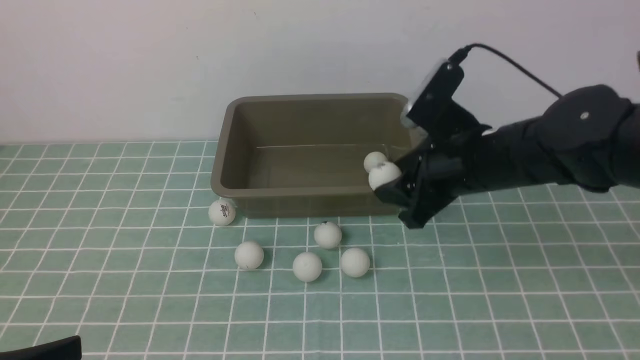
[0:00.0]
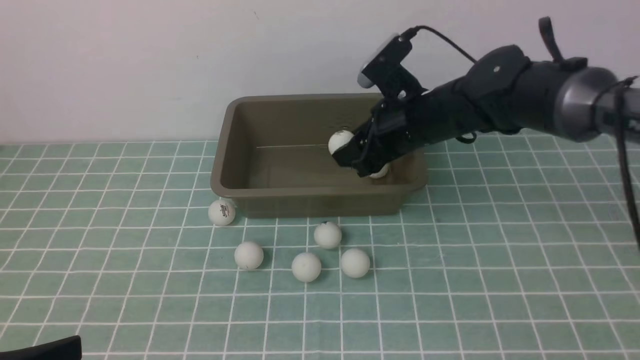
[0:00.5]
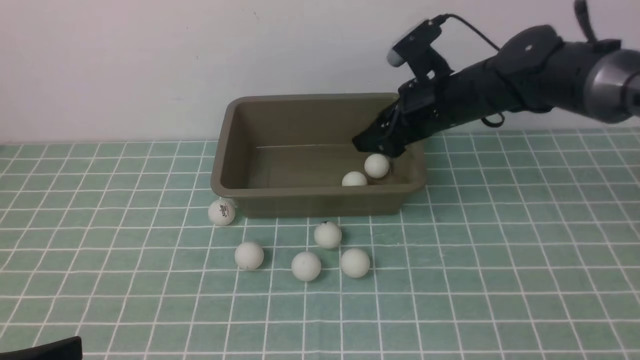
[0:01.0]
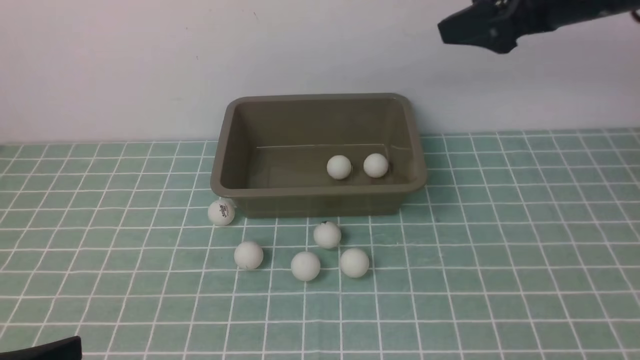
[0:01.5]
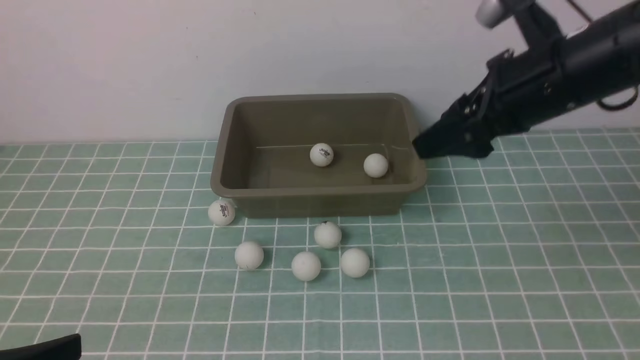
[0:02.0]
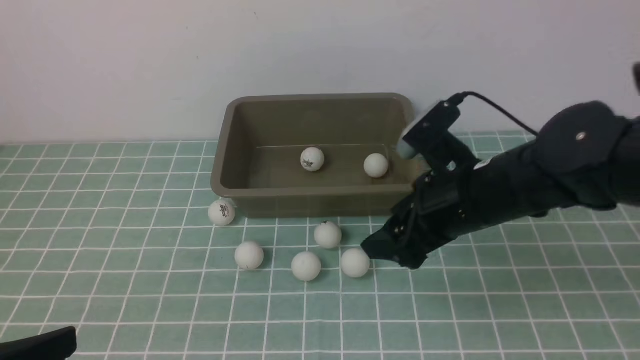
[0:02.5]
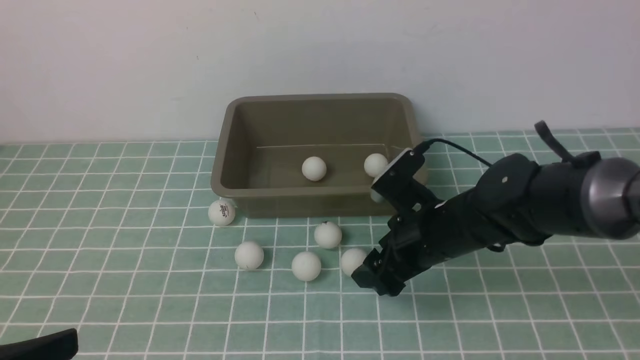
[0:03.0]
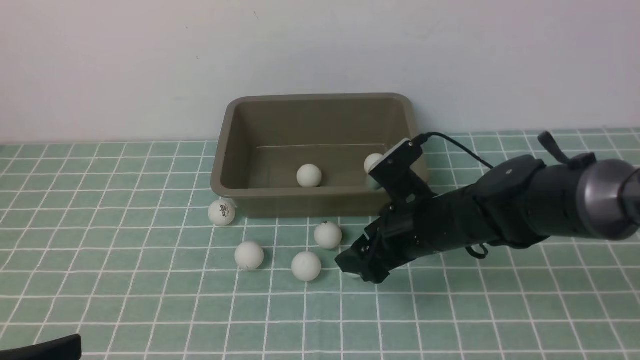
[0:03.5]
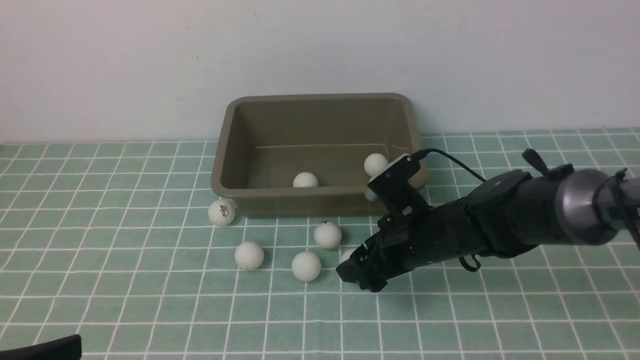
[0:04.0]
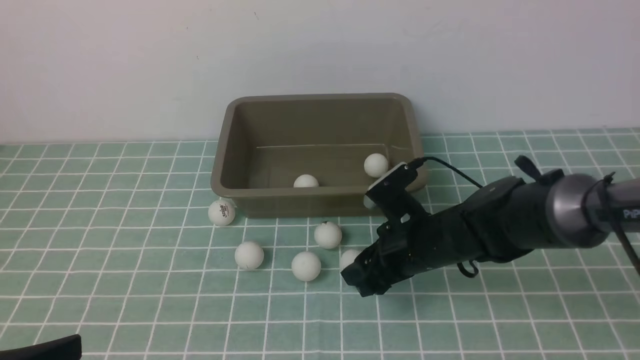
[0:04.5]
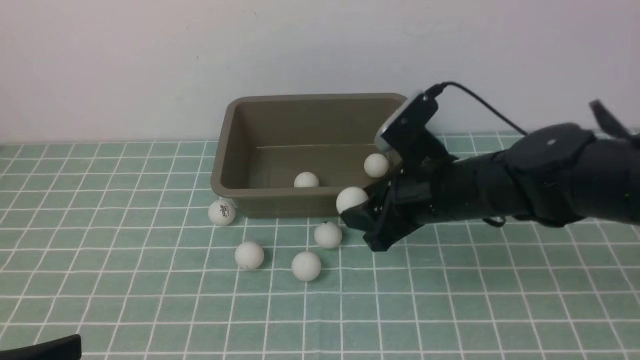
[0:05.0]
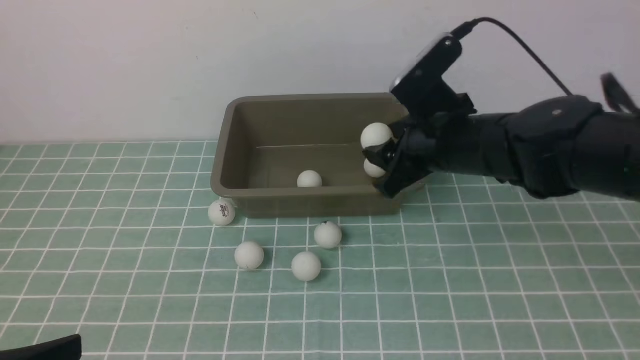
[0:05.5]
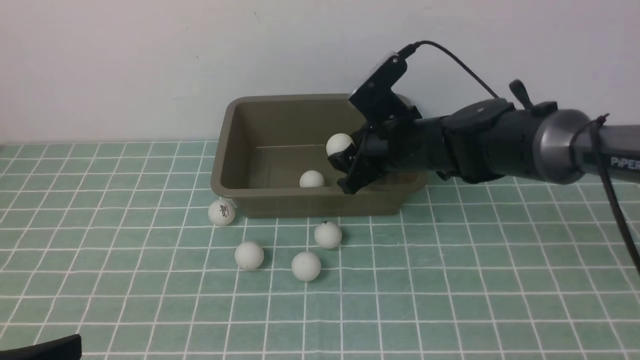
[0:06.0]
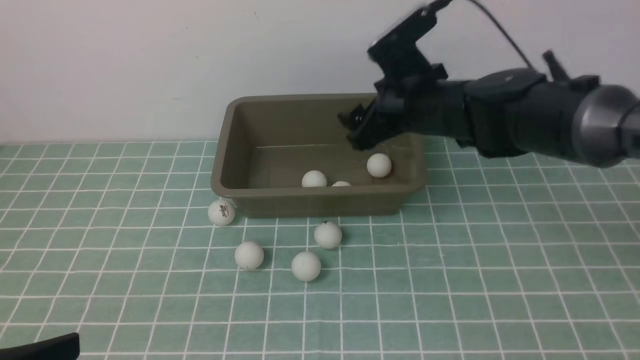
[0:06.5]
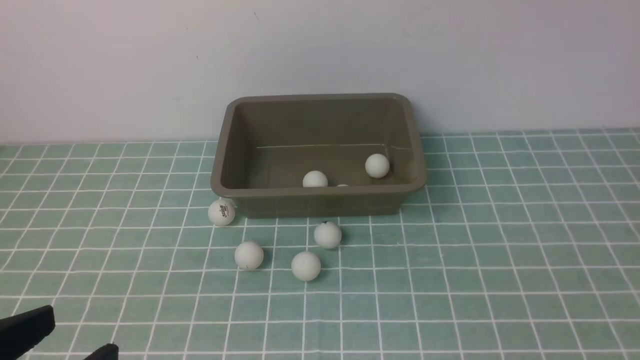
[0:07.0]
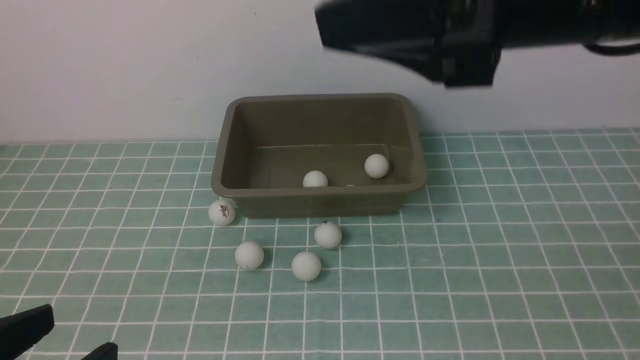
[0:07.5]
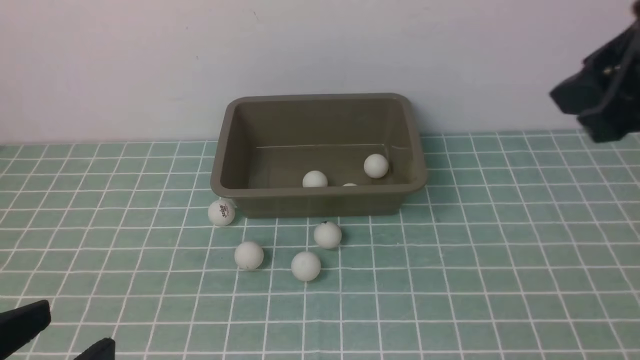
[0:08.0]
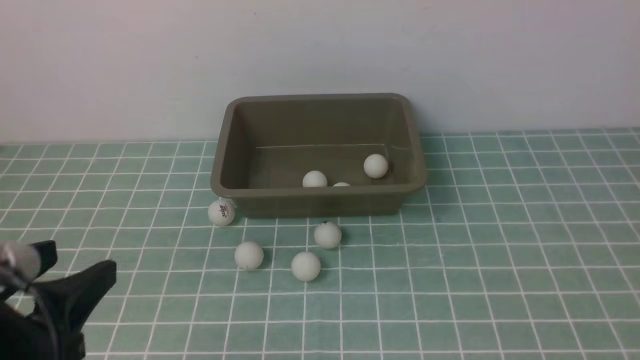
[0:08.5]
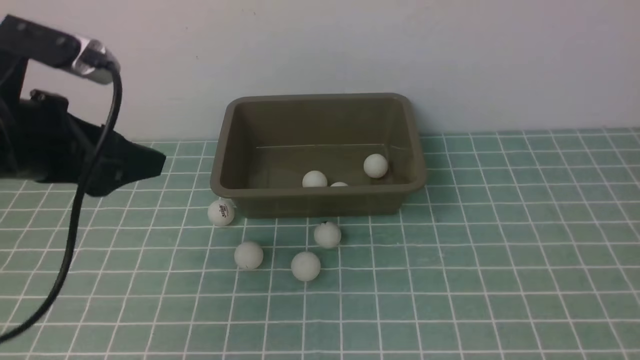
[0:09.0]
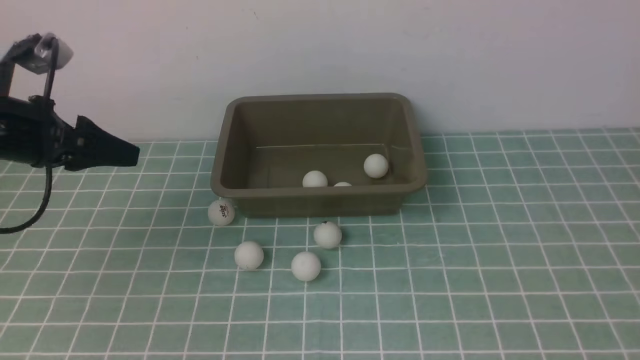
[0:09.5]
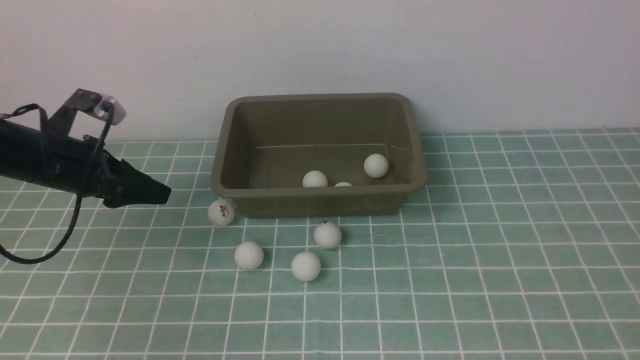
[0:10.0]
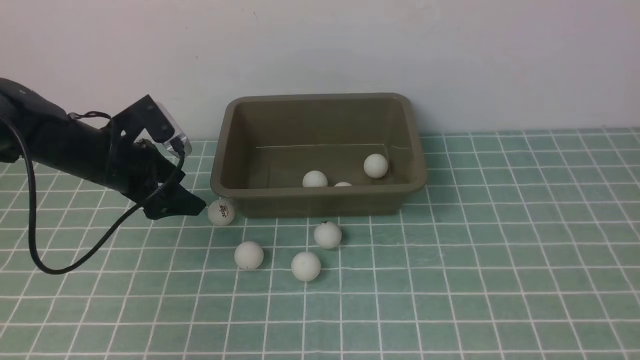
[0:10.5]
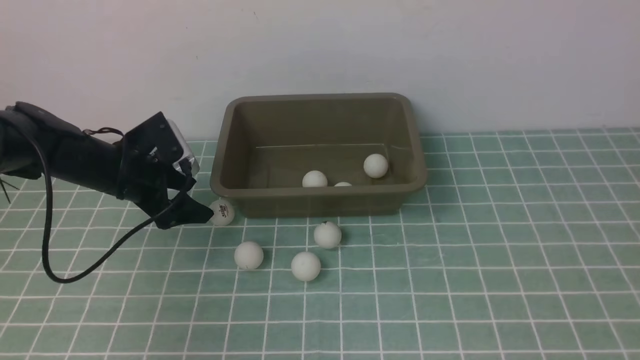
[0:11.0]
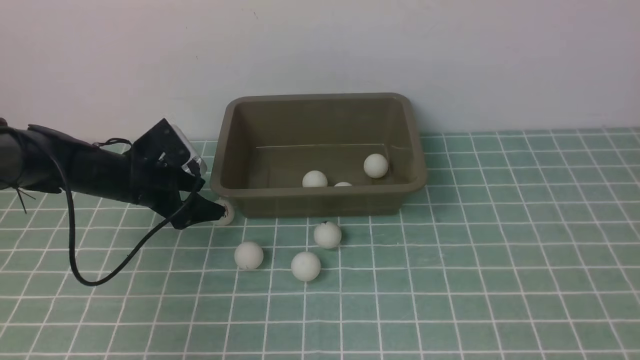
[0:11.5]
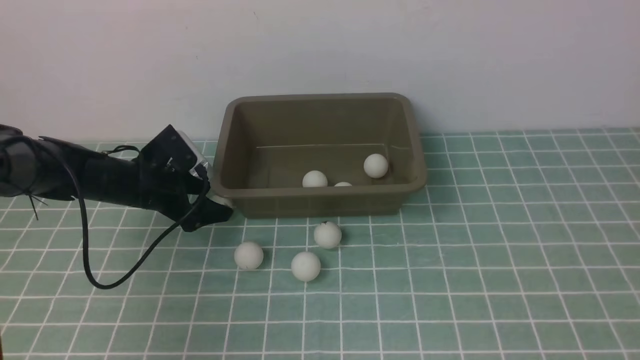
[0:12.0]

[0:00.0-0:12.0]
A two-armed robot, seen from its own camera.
Step, 0:00.0 to 0:01.0: use the right arm to put the table tennis ball into the box.
Step, 0:01.5 to 0:04.5: use the right arm to clamp the table tennis ball closest to it.
Step, 0:05.0 to 0:06.0: use the right arm to put the table tennis ball into the box.
0:00.0 to 0:02.0: The right gripper goes approximately 10 cm upward and to the right, and opens its fingers.
0:02.0 to 0:04.0: The right gripper moves downward and to the left, roughly 20 cm.
0:04.0 to 0:06.0: The right gripper goes about 10 cm forward and upward, and closes its fingers.
0:06.0 to 0:08.0: The right gripper goes roughly 30 cm upward, backward and to the right, and closes up.
0:08.0 to 0:10.0: The right gripper goes roughly 15 cm backward, to the right and upward. The left gripper travels forward by roughly 35 cm.
0:10.0 to 0:12.0: The left gripper is displaced downward and to the right by about 10 cm, and opens.

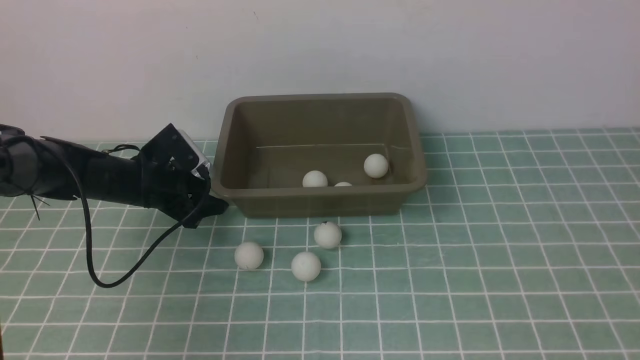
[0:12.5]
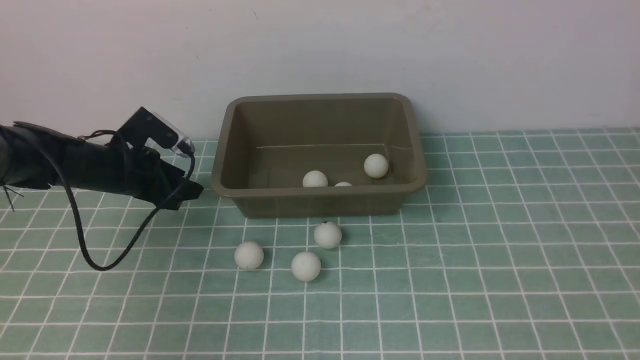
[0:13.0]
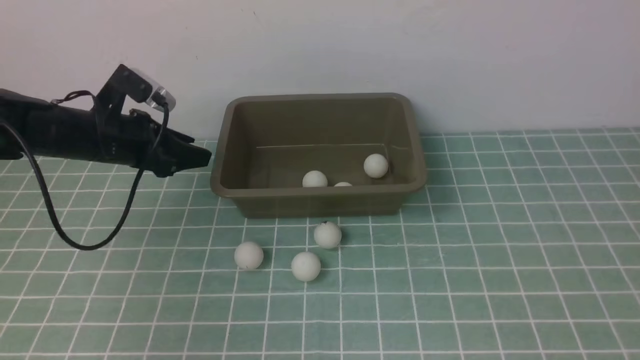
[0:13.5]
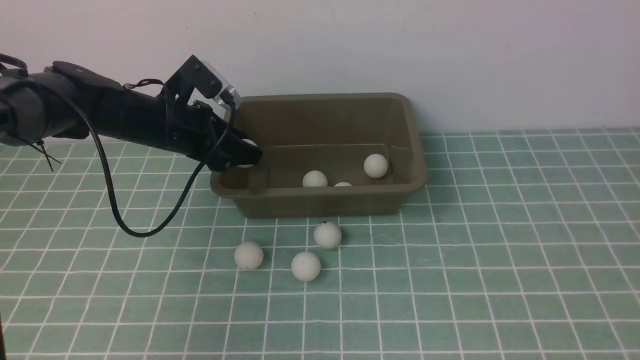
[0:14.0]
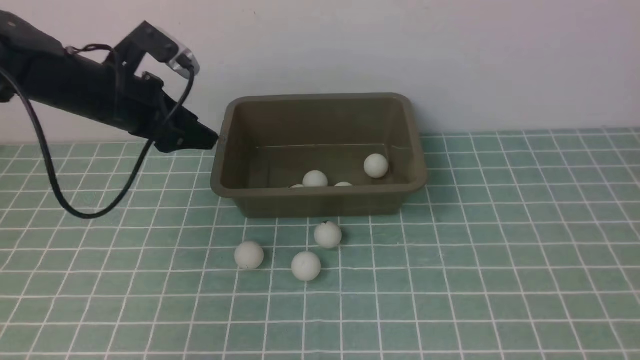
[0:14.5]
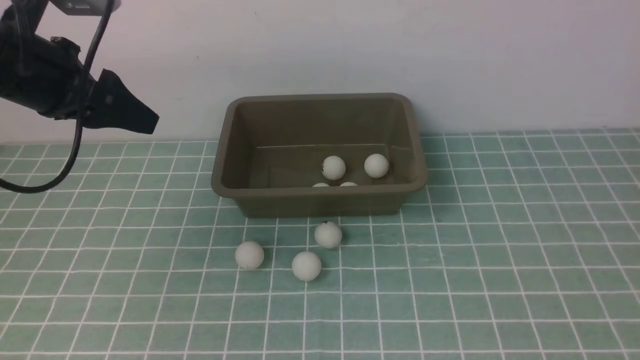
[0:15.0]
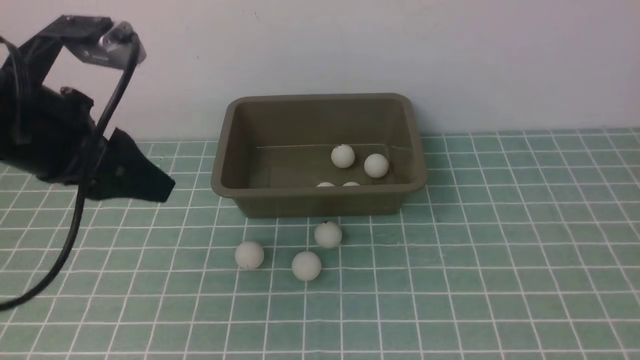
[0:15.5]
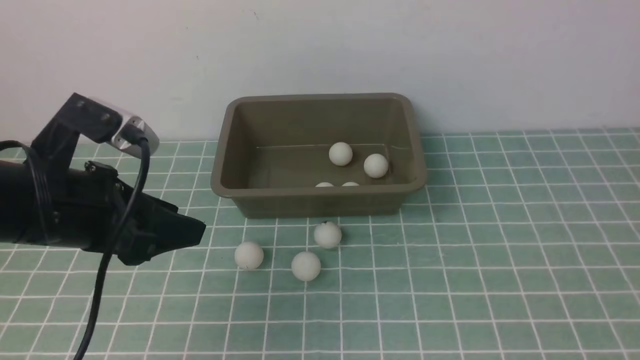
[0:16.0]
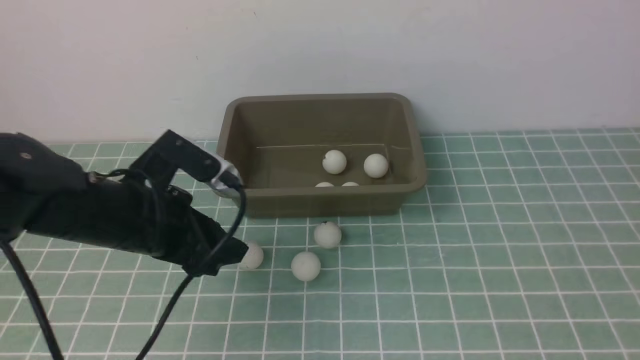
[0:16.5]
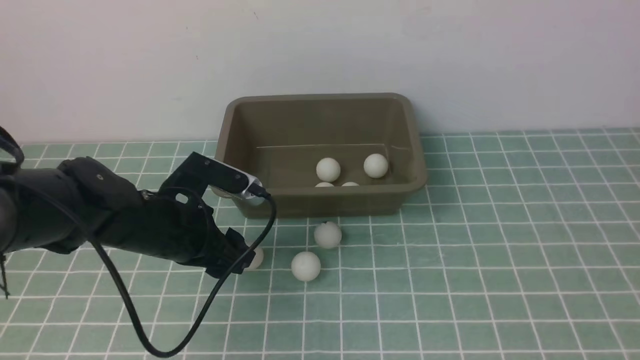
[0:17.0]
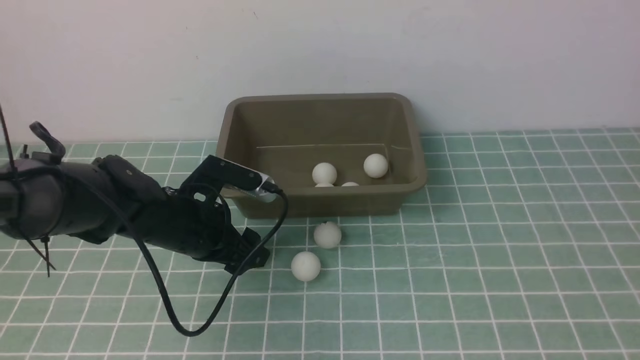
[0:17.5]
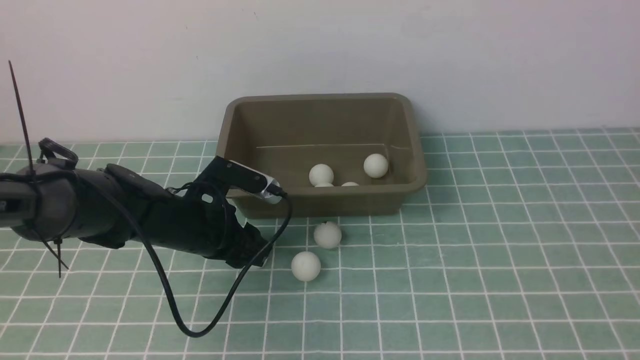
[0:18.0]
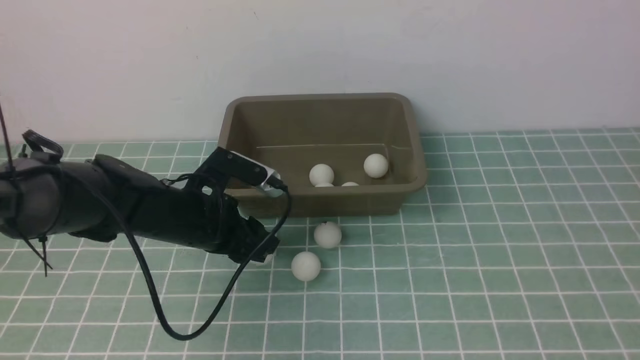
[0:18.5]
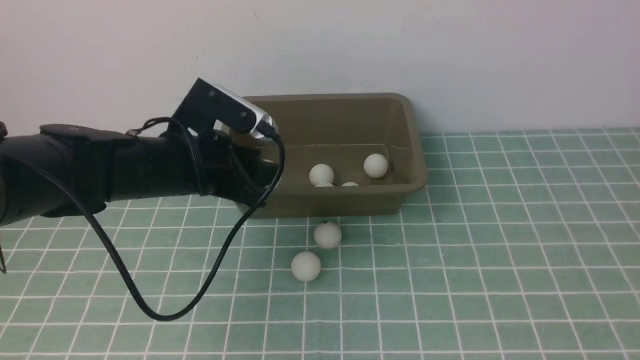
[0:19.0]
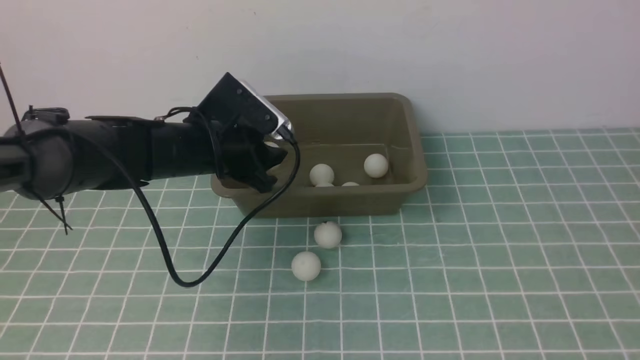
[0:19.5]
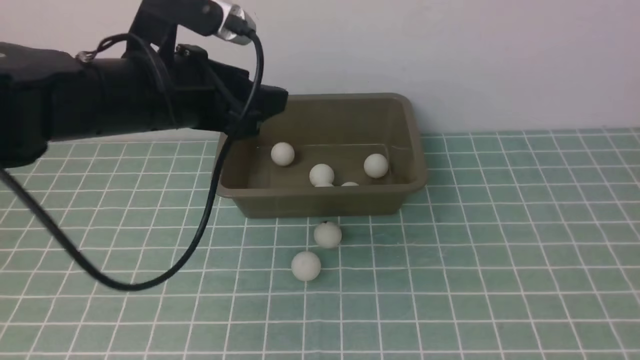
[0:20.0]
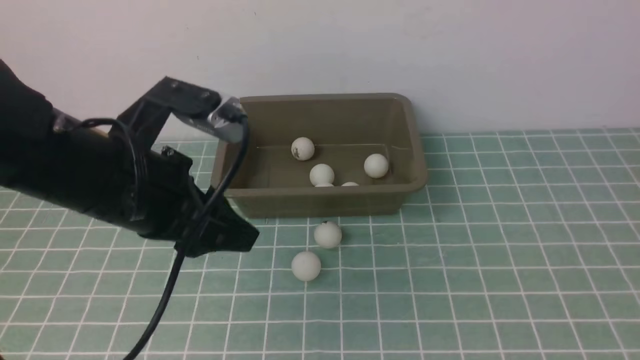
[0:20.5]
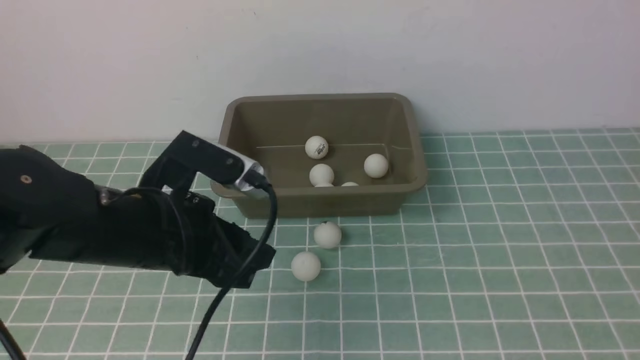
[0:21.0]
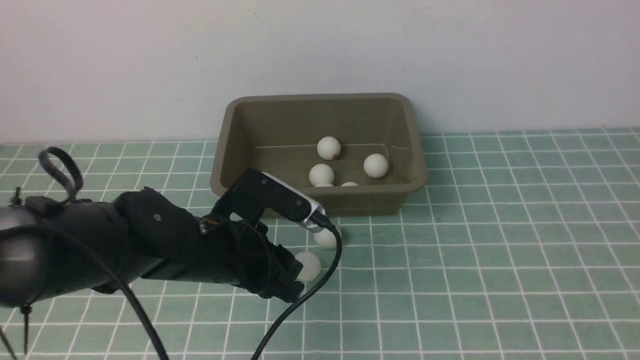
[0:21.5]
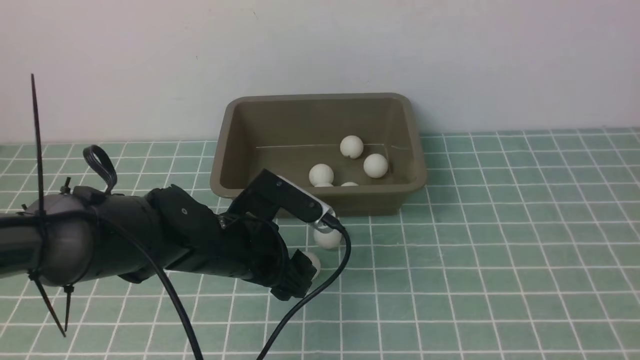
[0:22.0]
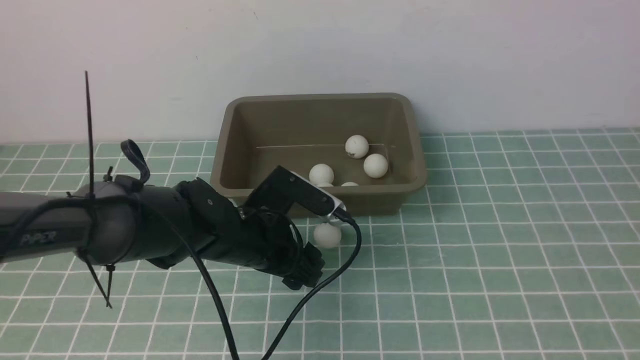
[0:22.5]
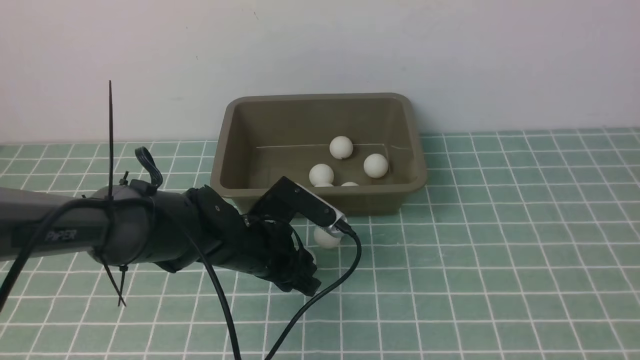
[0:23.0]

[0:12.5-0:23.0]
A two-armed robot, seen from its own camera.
Step, 0:13.5 to 0:14.5: use the left arm to put the table tennis ball into the box.
Step, 0:15.0 to 0:18.5: use the left arm to clamp the table tennis ball closest to it.
Step, 0:19.0 to 0:19.5: use the left arm to put the table tennis ball into the box.
0:12.5 to 0:14.5: The left gripper travels upward by roughly 20 cm.
0:14.5 to 0:16.5: The left gripper moves backward, downward and to the right, roughly 15 cm.
0:16.5 to 0:19.0: The left gripper heads forward, covering roughly 10 cm, reaches about 10 cm downward, then returns, and closes.
0:19.0 to 0:21.0: The left gripper is displaced backward by about 10 cm, and opens and closes again.
0:21.0 to 0:23.0: The left gripper shifts roughly 10 cm downward and forward, and opens, then closes again.
